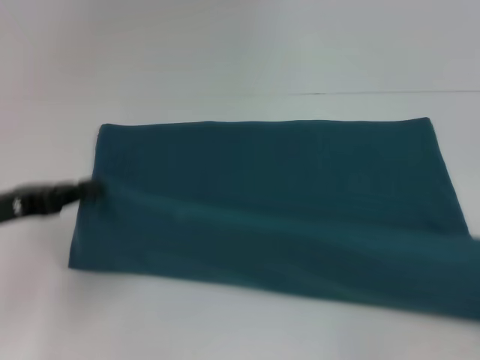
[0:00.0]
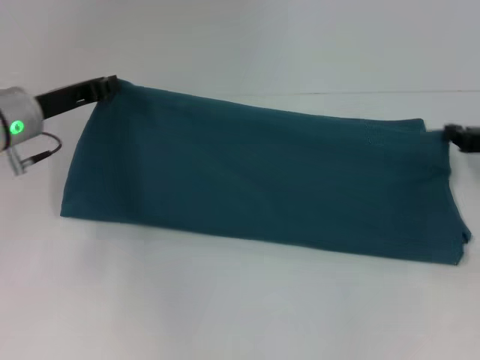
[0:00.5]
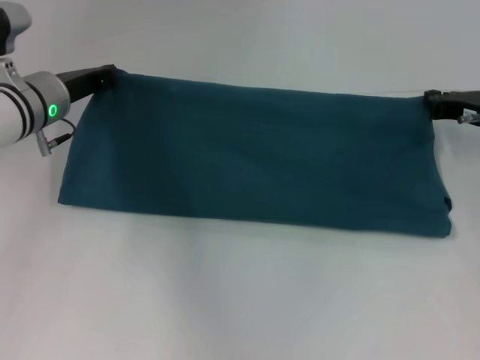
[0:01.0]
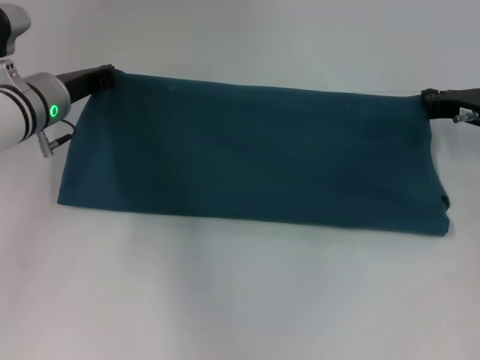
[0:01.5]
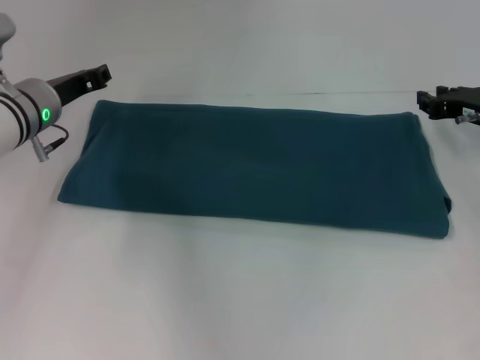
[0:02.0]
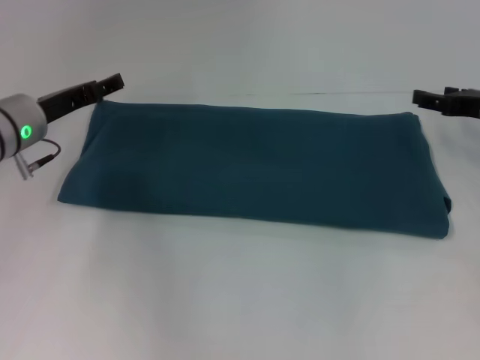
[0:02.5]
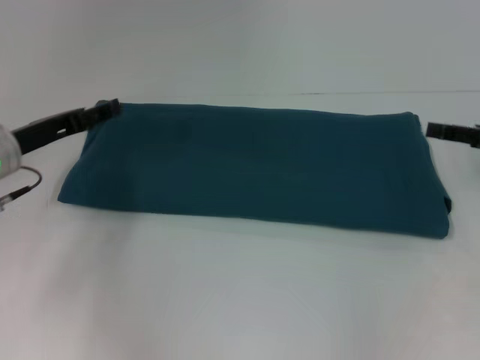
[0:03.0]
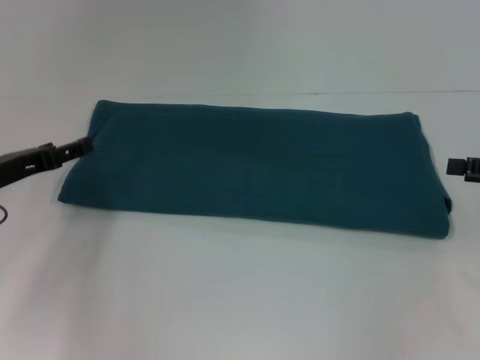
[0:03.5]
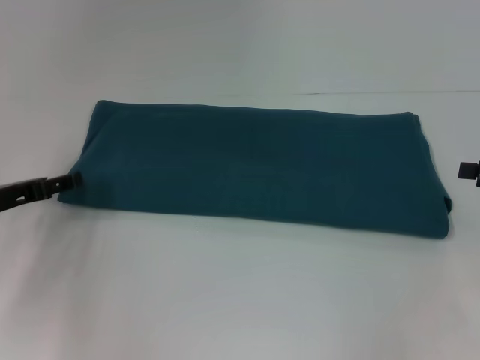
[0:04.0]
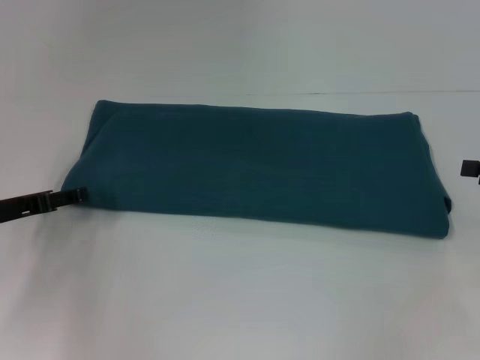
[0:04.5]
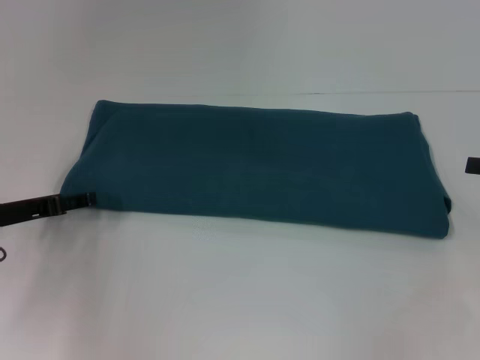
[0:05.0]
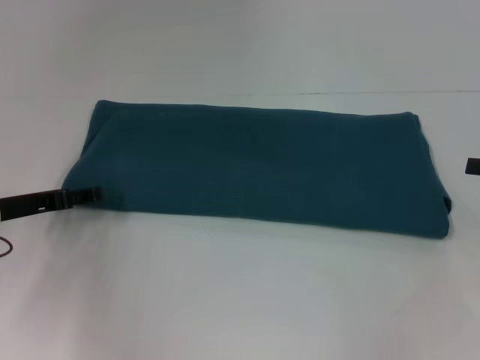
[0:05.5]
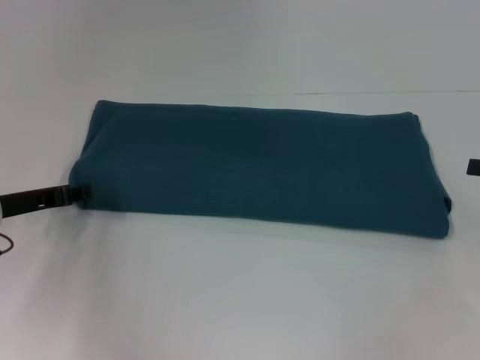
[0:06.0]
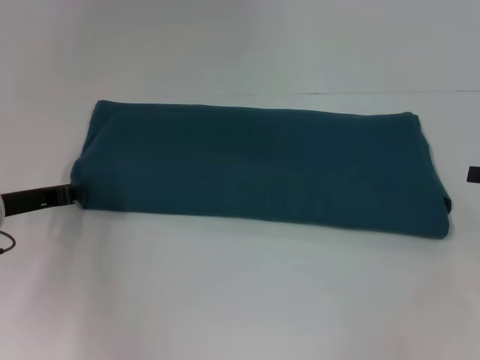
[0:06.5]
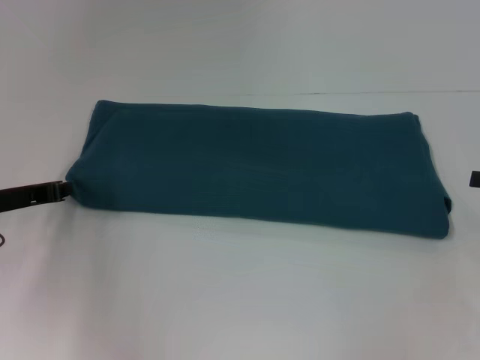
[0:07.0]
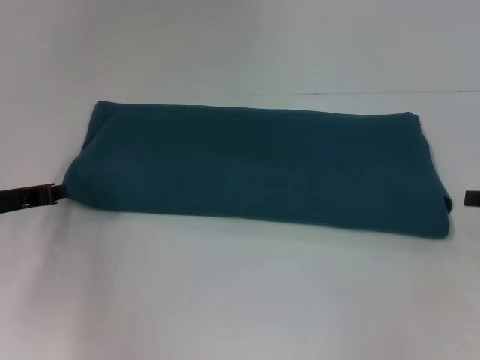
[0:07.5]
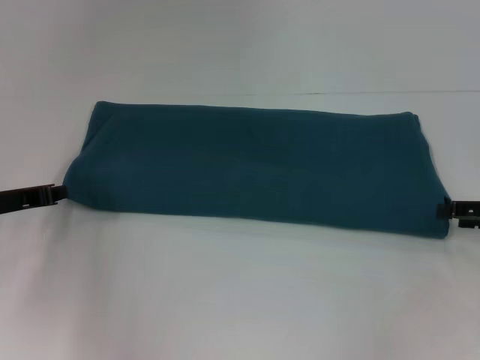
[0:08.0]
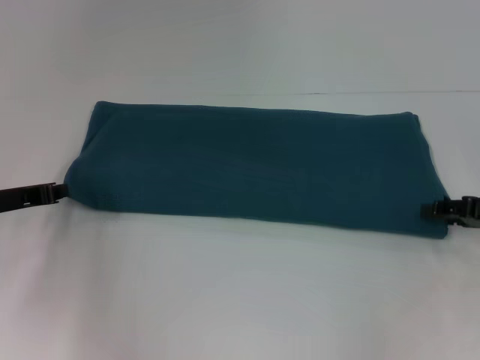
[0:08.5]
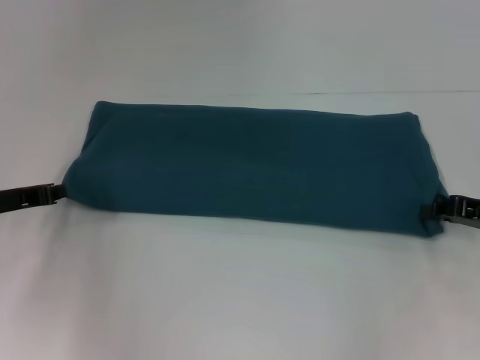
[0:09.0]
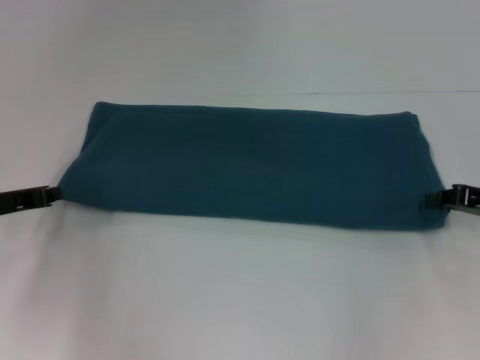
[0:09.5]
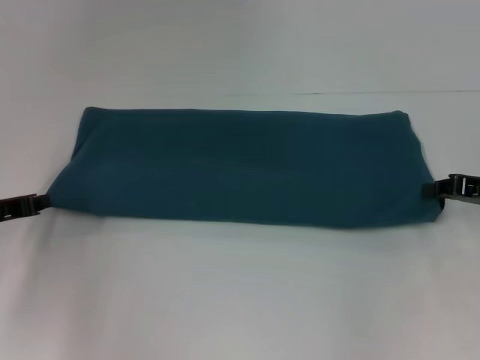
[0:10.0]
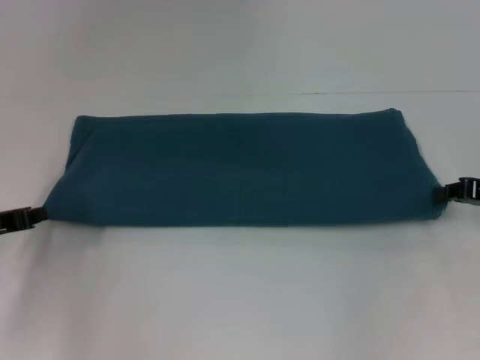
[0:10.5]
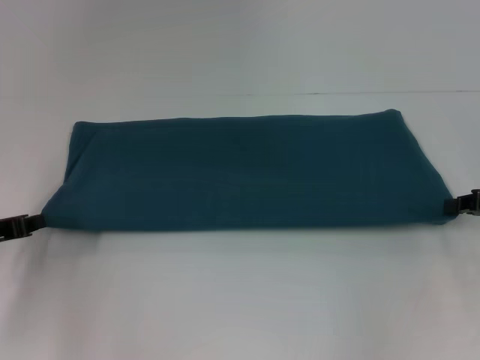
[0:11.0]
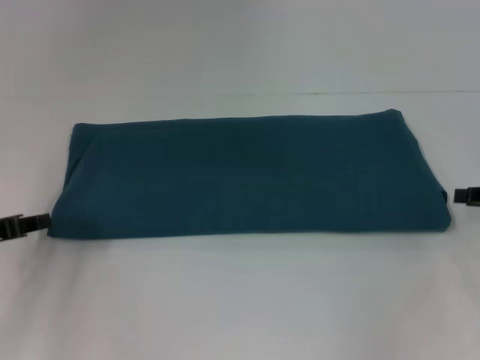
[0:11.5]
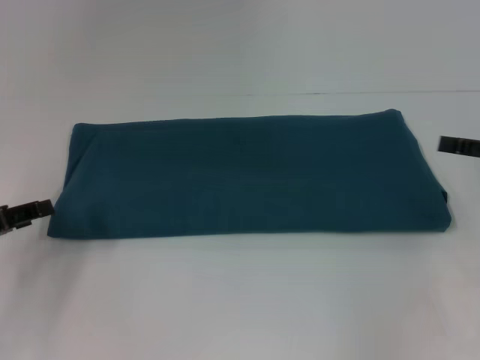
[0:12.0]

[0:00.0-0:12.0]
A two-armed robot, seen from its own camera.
Step, 0:00.0 to 0:02.0: Fold the clothes to the right.
0:00.0 to 0:02.0: The right gripper travels forward and to the left by some 25 cm. The left gripper is displaced forward and to the right by approximately 15 cm.
0:02.0 to 0:04.0: The right gripper goes roughly 15 cm backward and to the right, and opens its fingers. The left gripper shifts some 15 cm backward and to the left, and opens its fingers.
0:04.0 to 0:06.0: There are only small adjustments of the grippers.
0:06.0 to 0:08.0: The left gripper closes.
0:08.0 to 0:10.0: The right gripper closes up.
0:10.0 to 0:12.0: The left gripper ends up about 5 cm from where it was, and opens up. The right gripper changes place by about 5 cm, and opens its fingers.

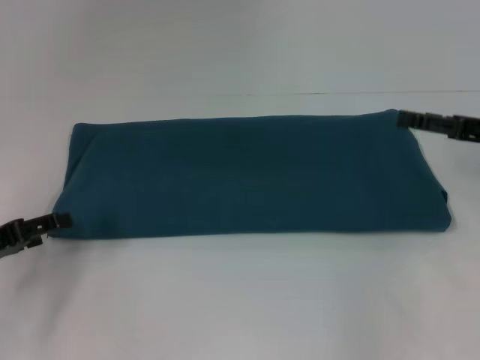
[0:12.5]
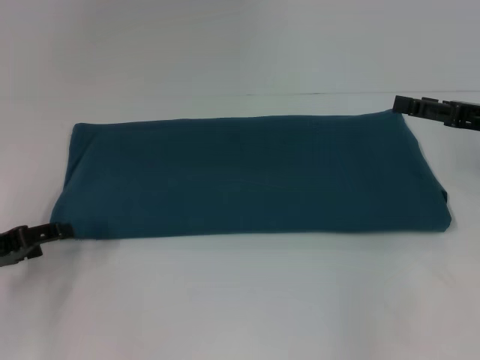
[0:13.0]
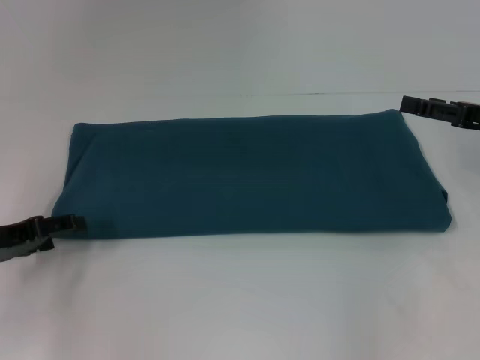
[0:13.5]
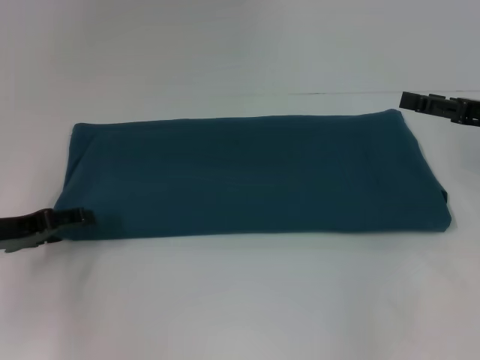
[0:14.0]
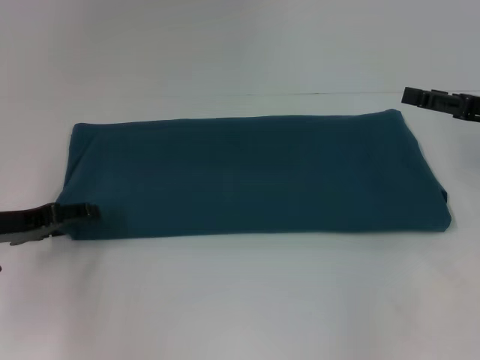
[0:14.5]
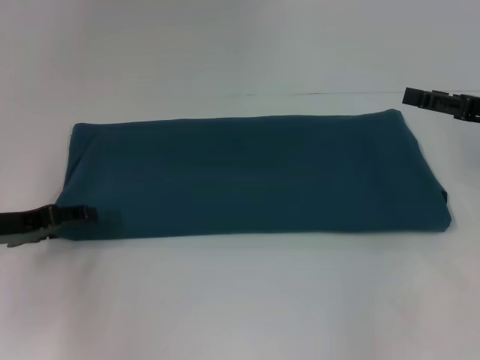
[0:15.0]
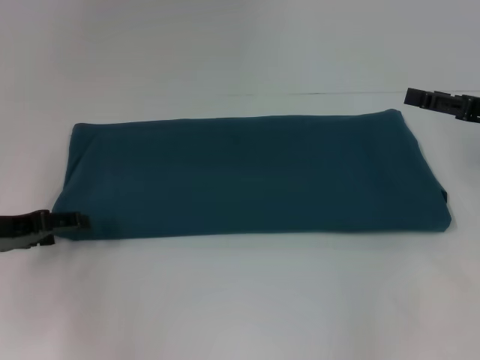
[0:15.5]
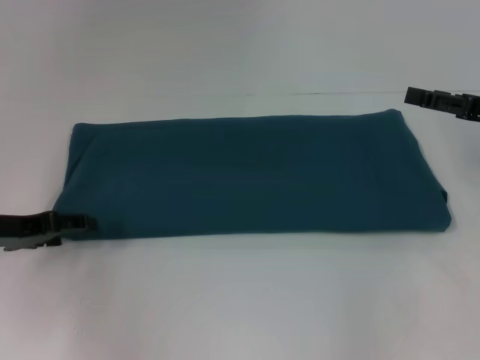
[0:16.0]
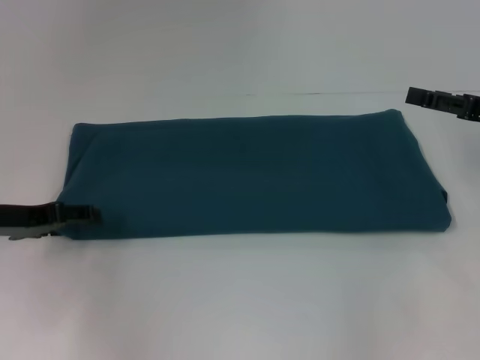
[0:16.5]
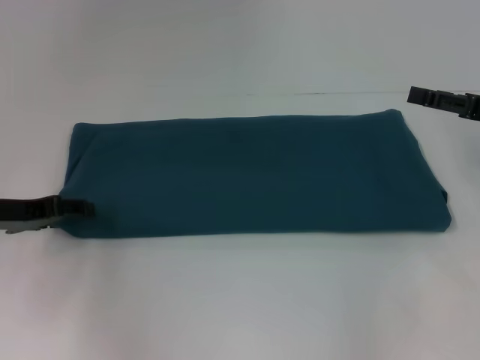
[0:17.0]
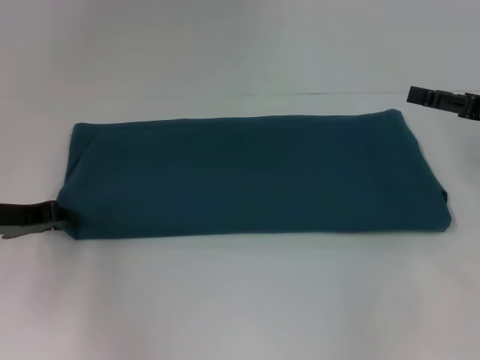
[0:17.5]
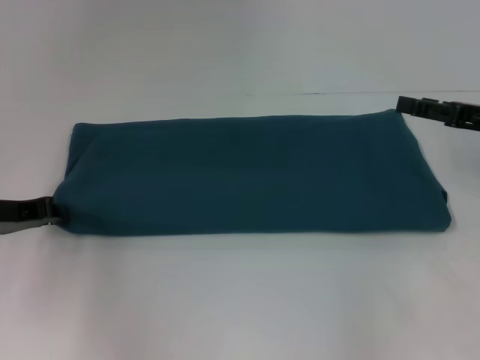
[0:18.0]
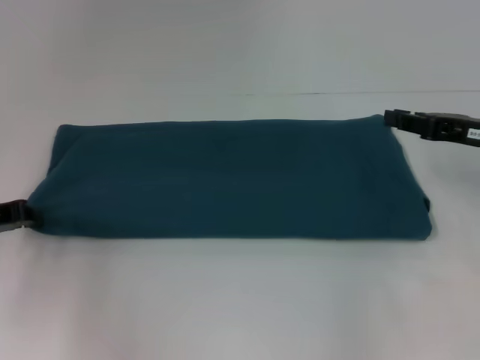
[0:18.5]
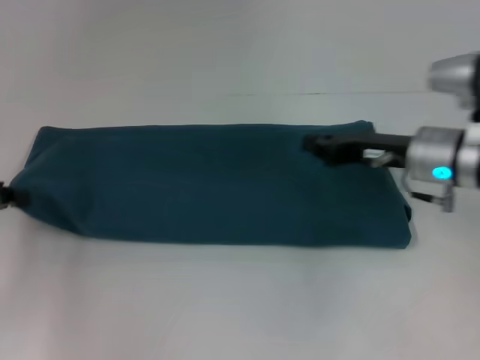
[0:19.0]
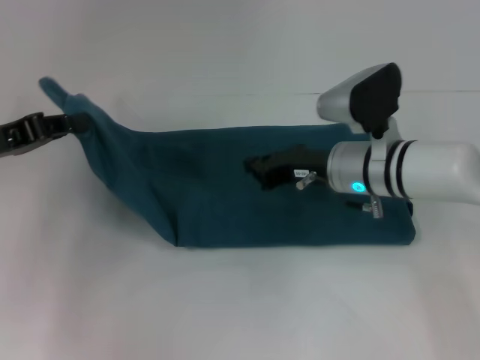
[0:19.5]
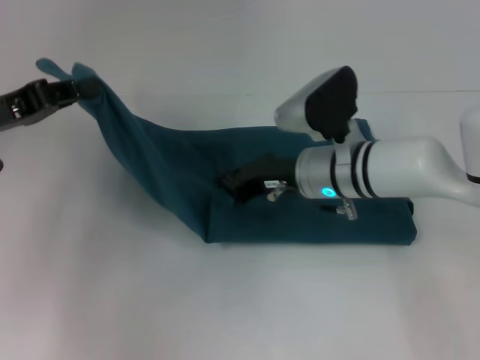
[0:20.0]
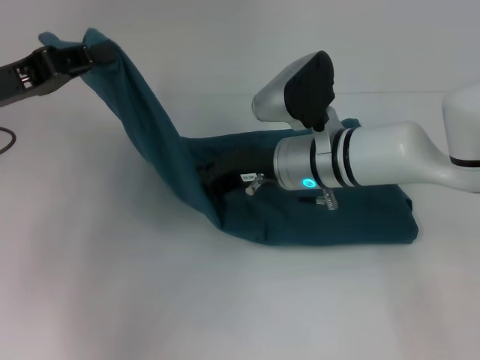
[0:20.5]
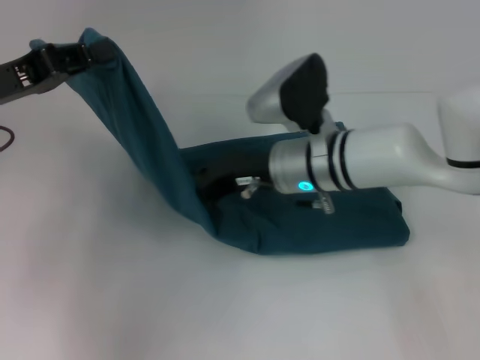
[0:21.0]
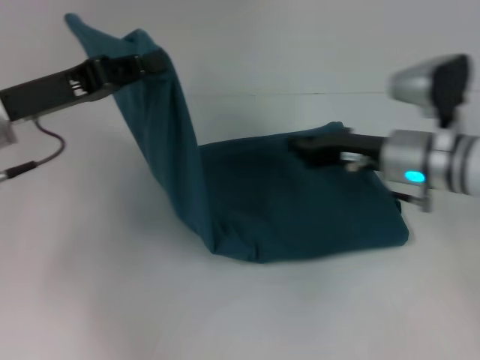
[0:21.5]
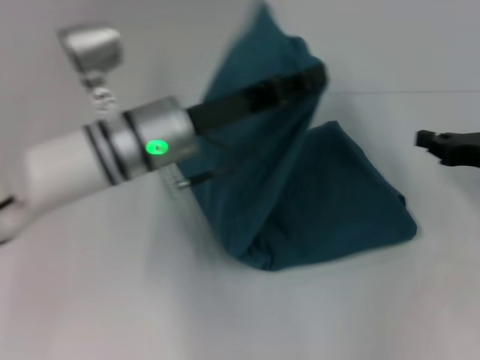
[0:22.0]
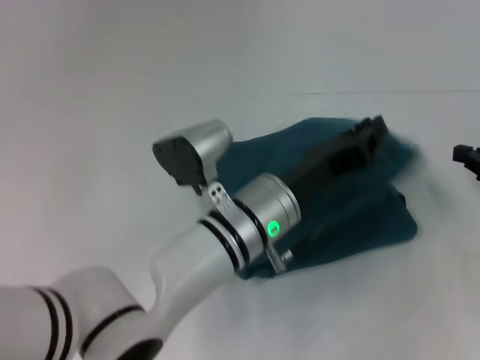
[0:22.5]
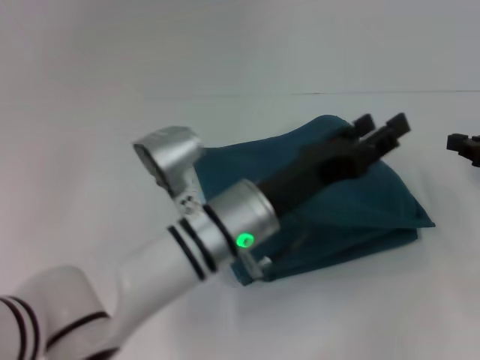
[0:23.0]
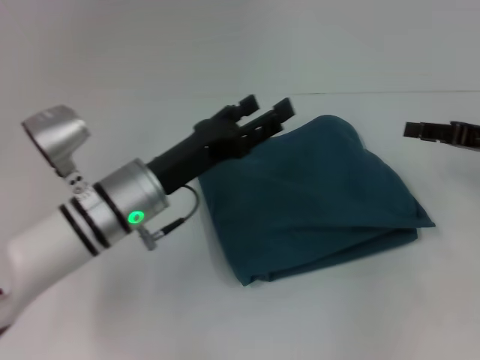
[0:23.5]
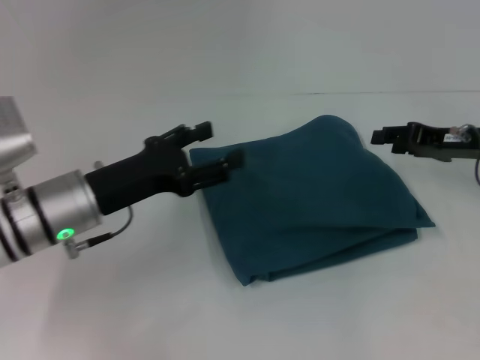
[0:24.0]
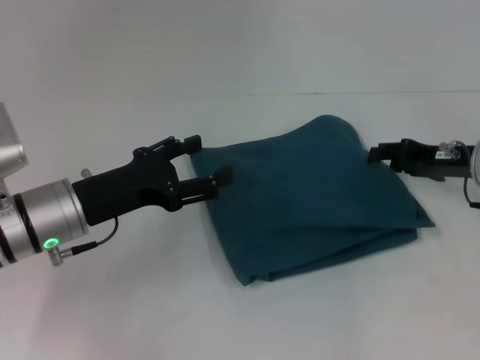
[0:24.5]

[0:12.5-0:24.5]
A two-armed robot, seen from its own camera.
Step, 0:12.5 to 0:22.5: Fold the clothes to the left.
0:12.5 to 0:14.5: The left gripper ends up approximately 5 cm from where it was.
0:16.5 to 0:18.5: The right gripper closes; the left gripper closes.
0:18.5 to 0:20.5: The left gripper shifts roughly 10 cm upward; the right gripper travels to the left by some 25 cm, and closes up.
0:20.5 to 0:22.5: The two grippers go approximately 30 cm to the right.
0:22.5 to 0:24.5: The left gripper goes roughly 20 cm to the left, and opens up; the right gripper moves to the left and forward, some 10 cm, and opens up.

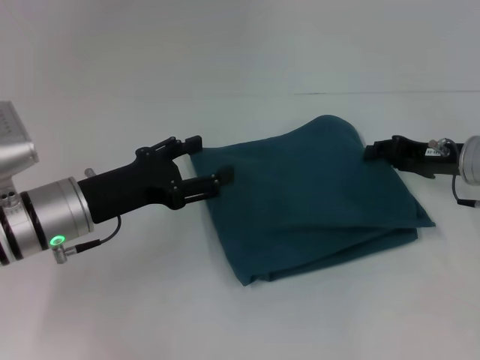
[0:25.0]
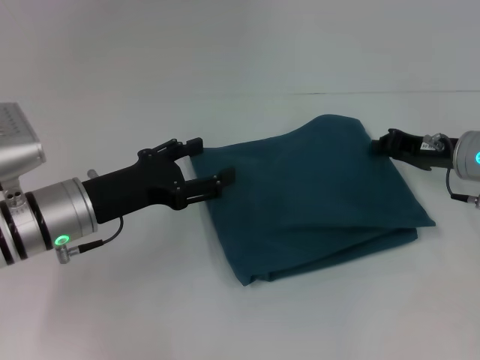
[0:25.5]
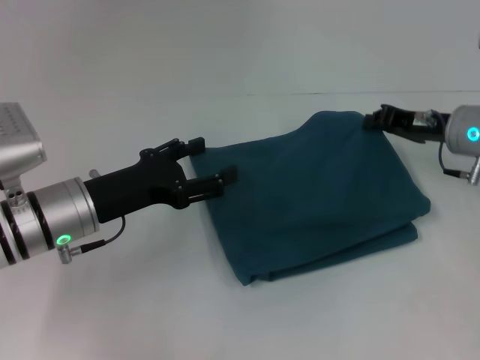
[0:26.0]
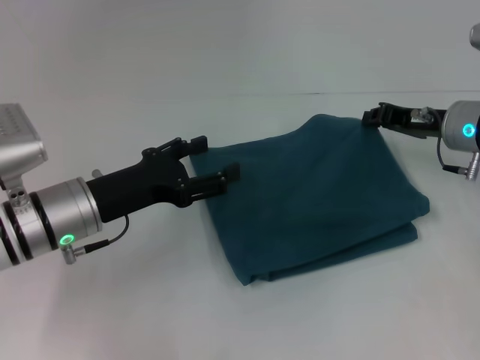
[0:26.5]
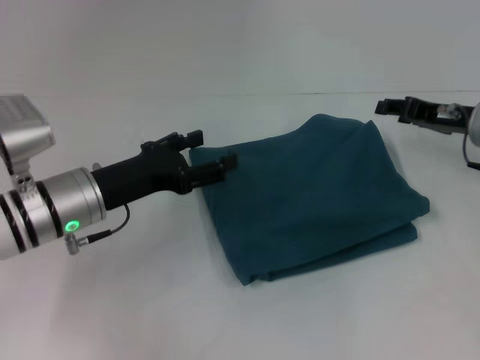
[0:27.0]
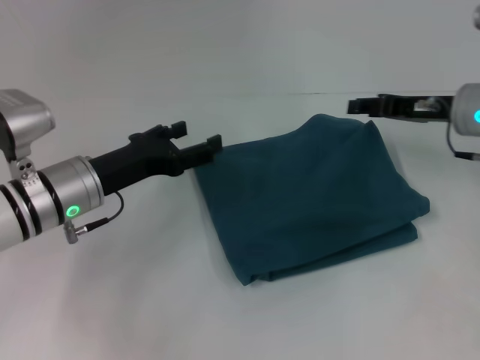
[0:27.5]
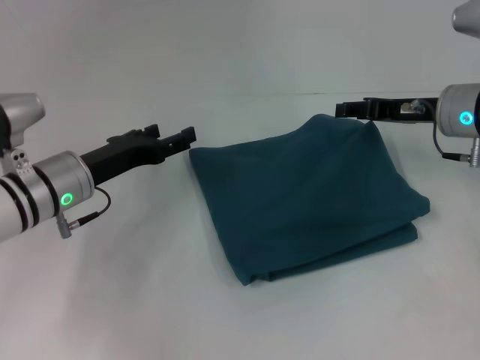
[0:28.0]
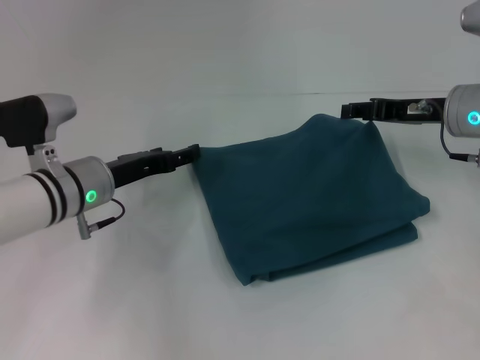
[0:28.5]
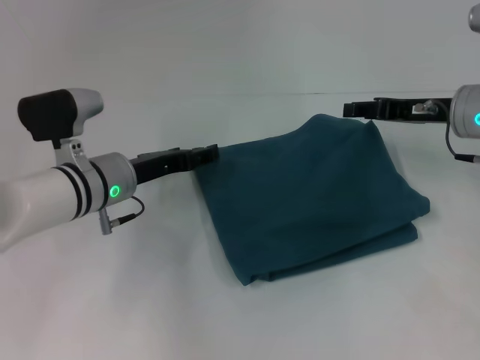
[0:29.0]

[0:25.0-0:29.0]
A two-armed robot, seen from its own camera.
0:25.0 to 0:27.0: The right gripper closes, then reopens.
0:27.0 to 0:29.0: The left gripper heads forward, covering approximately 5 cm.
